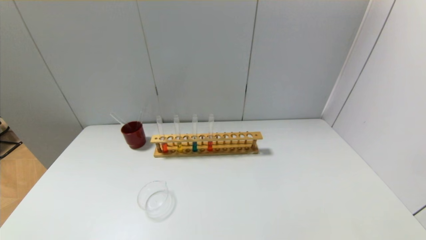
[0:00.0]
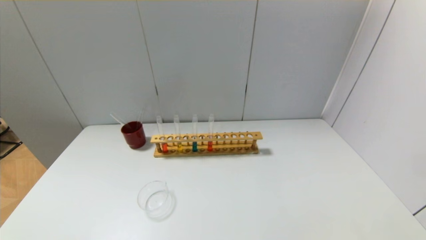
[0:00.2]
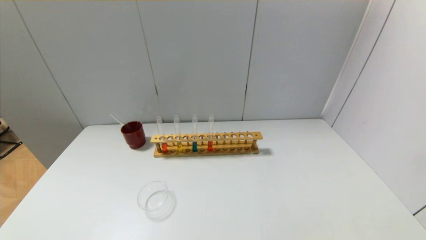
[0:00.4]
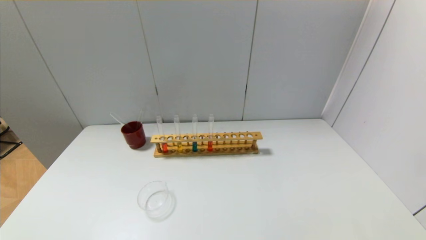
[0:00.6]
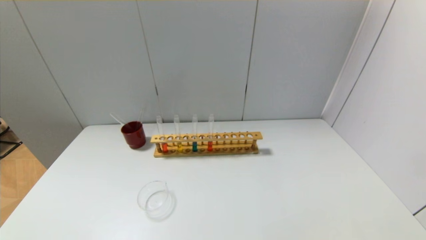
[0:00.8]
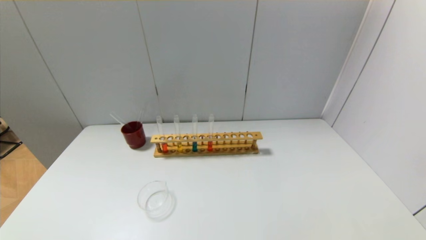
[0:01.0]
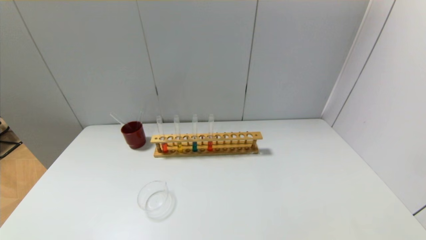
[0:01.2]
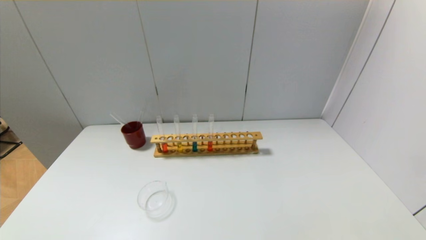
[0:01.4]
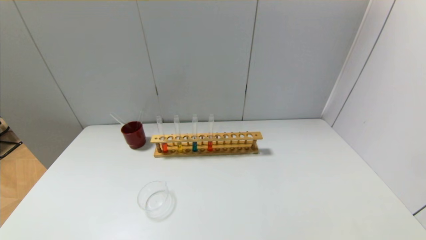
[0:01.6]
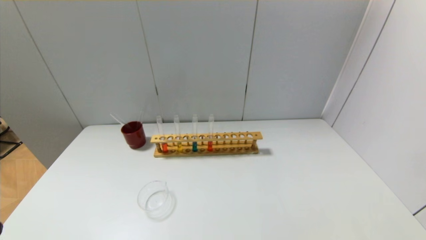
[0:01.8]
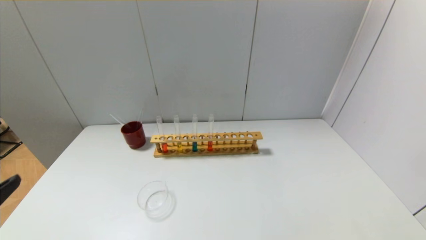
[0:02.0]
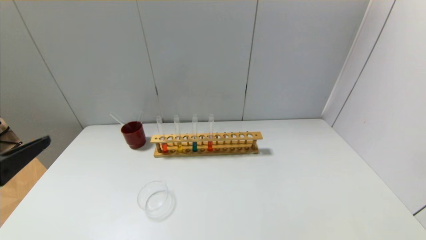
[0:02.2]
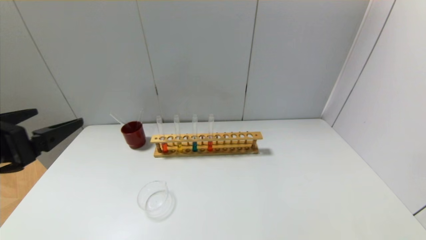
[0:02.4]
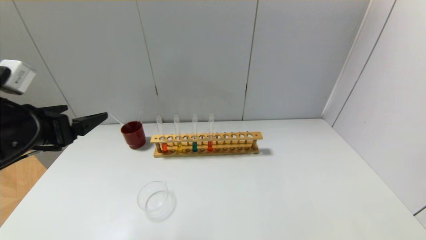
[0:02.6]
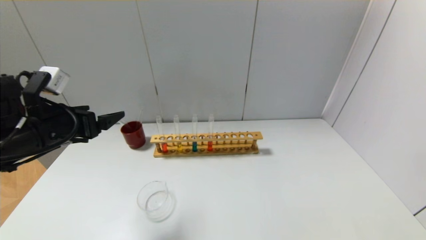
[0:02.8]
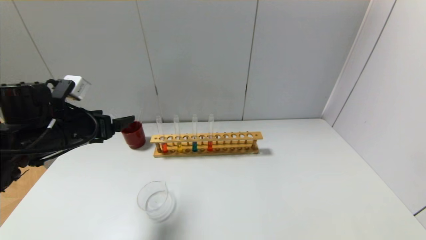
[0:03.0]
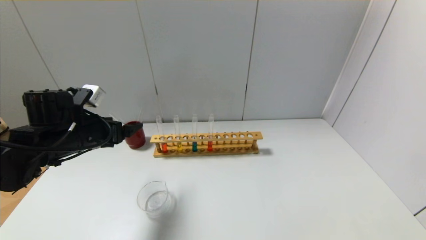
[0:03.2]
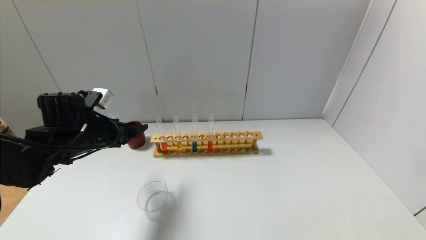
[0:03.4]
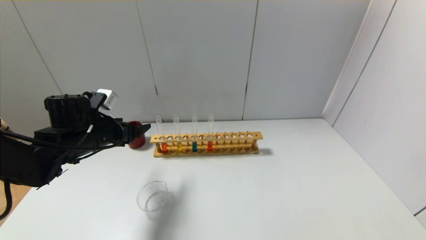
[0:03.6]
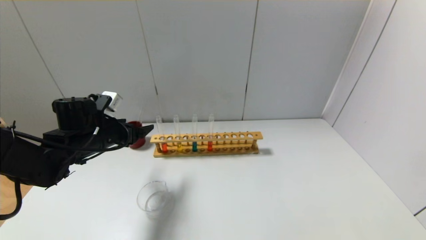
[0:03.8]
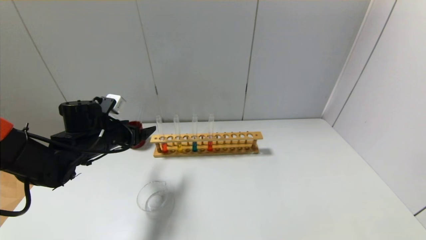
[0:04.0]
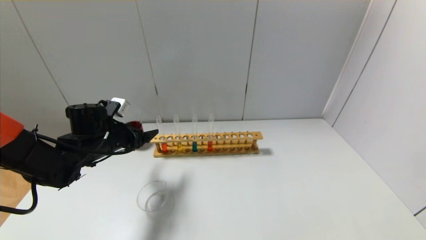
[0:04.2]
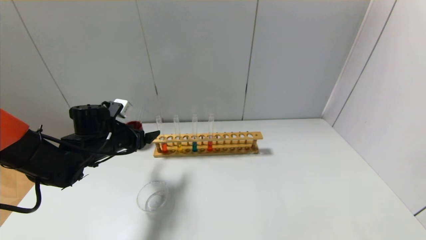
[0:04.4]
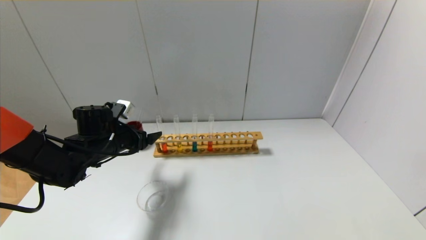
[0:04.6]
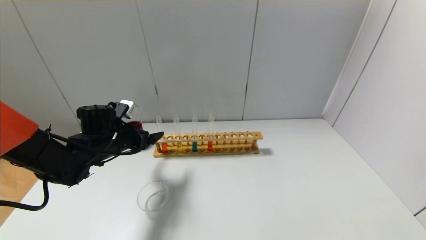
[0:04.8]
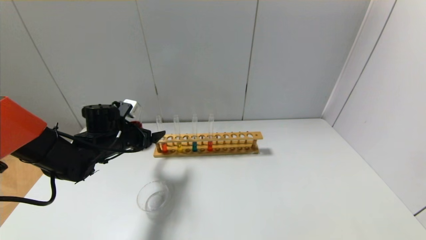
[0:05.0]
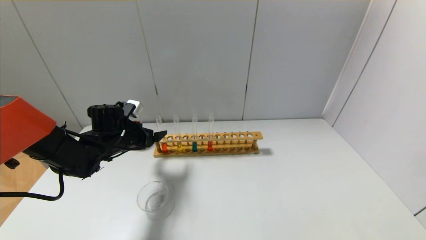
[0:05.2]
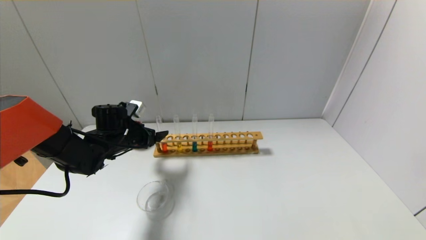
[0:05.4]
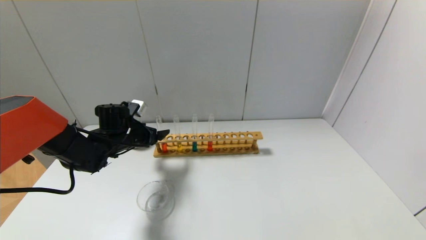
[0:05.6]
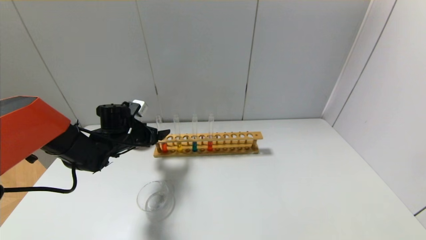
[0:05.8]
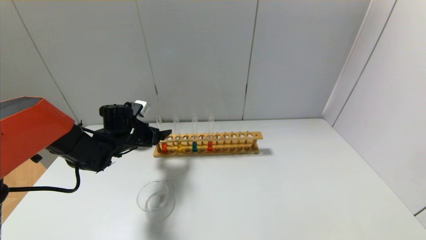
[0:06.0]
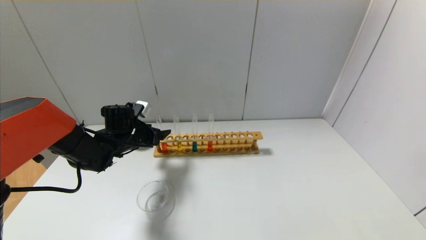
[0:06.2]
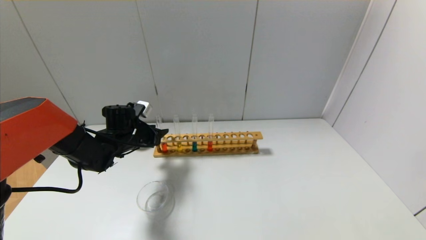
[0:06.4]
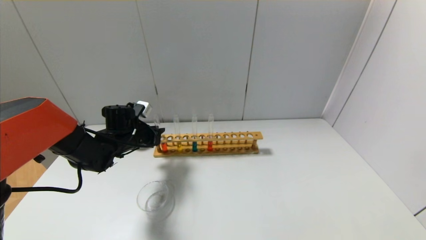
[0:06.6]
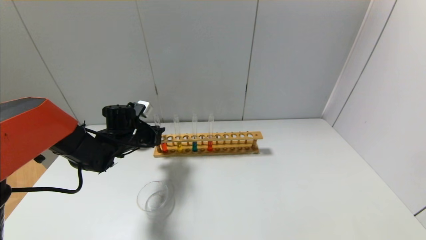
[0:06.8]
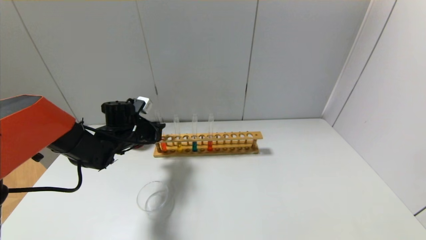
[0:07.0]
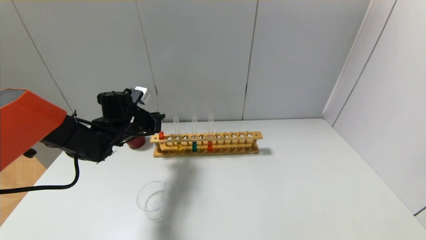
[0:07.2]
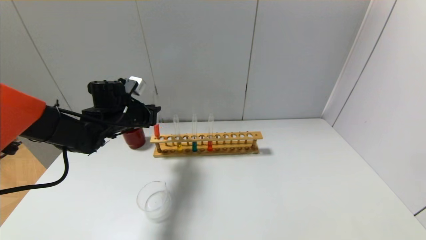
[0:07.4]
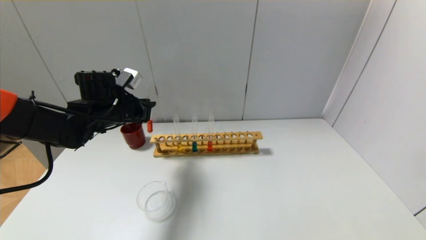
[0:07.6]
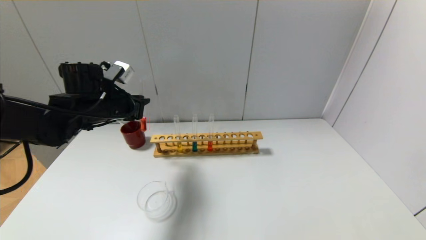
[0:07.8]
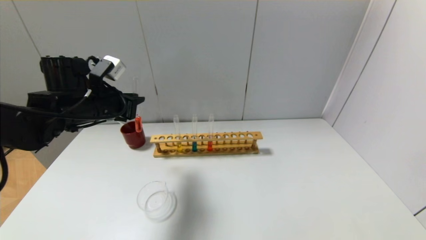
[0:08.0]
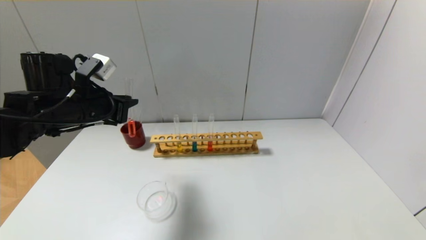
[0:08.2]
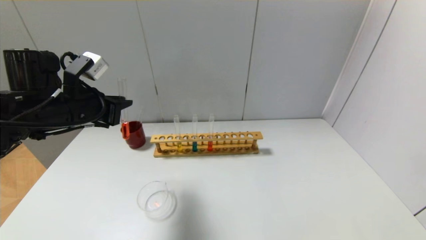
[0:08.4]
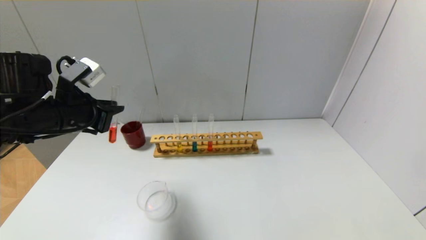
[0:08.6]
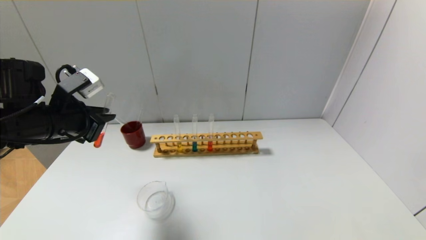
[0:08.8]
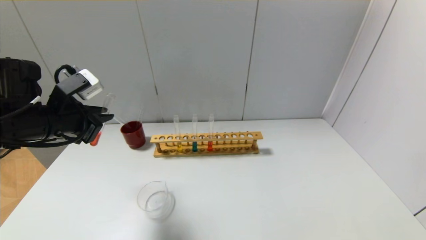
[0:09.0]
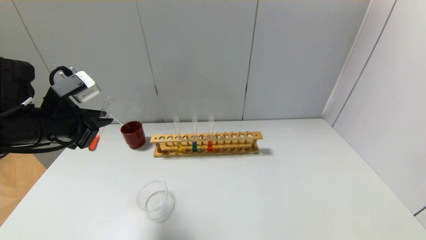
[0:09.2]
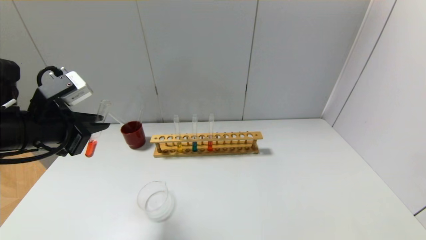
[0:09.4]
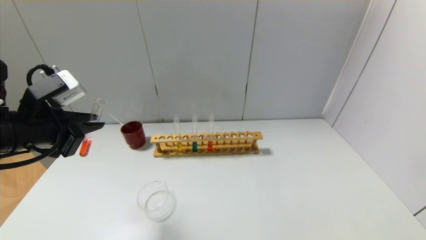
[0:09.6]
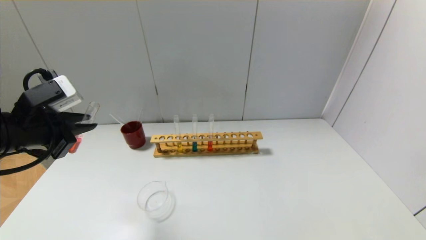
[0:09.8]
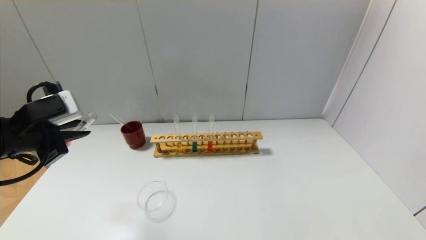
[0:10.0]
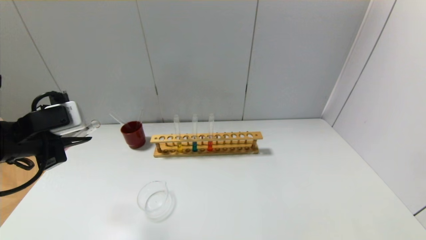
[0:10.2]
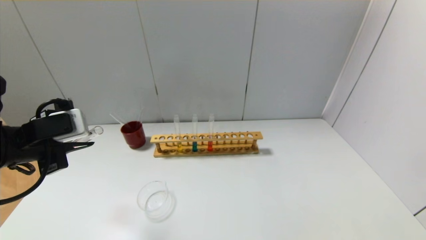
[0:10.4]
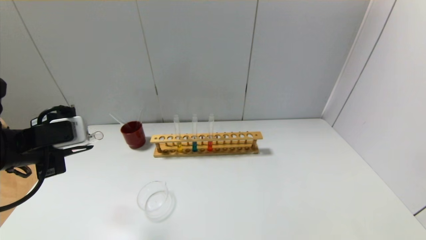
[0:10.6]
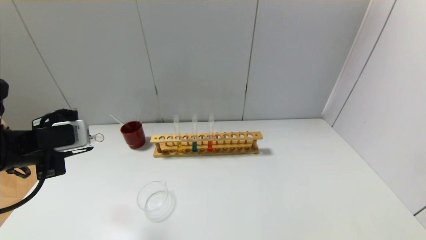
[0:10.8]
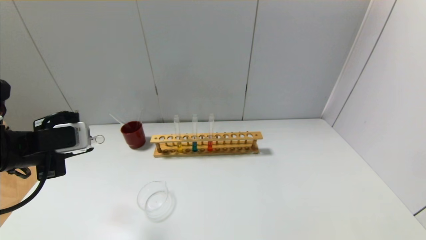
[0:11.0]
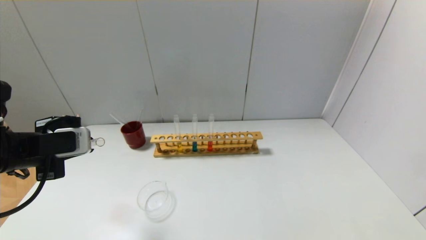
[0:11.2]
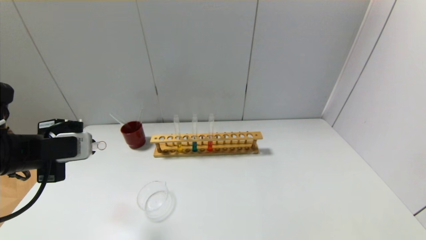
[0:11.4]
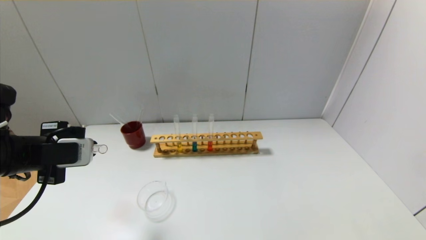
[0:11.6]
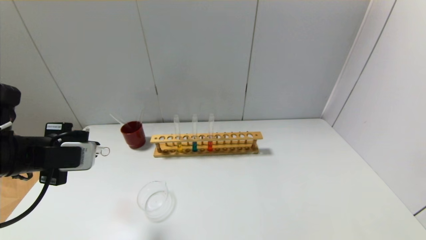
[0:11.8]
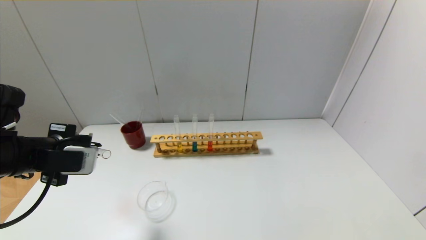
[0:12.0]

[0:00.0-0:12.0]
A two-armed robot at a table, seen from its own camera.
Step, 0:00.0 to 0:06.6: Grasp the red reagent with the left gripper.
0:01.6 to 0:03.0: The left gripper shifts approximately 30 cm forward.
0:03.0 to 0:04.4: The left gripper travels downward and forward by approximately 10 cm.
0:04.4 to 0:06.0: The left gripper heads forward, covering about 5 cm.
0:06.0 to 0:07.6: The left gripper is displaced upward by about 10 cm, and closes its fingers.
0:07.6 to 0:09.0: The left gripper heads backward and to the left, covering some 10 cm.
0:09.0 to 0:10.4: The left gripper moves backward, roughly 5 cm.

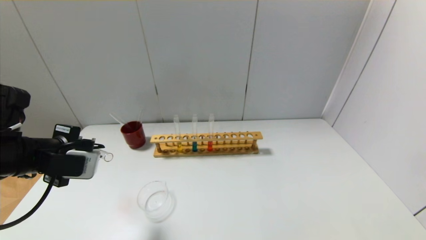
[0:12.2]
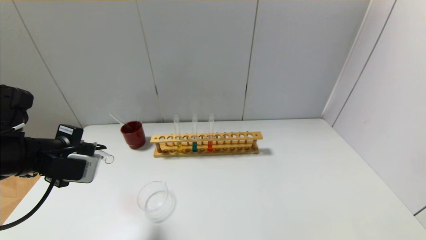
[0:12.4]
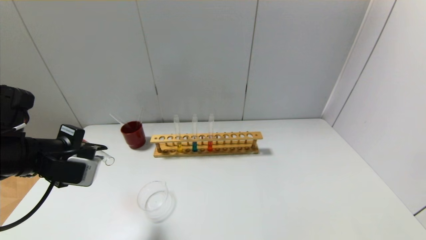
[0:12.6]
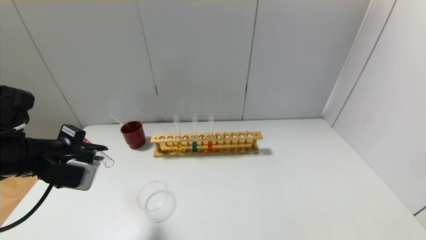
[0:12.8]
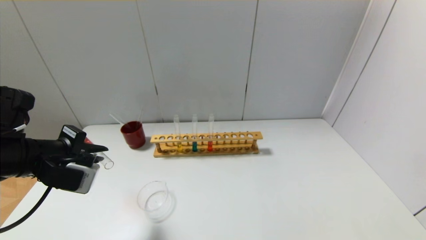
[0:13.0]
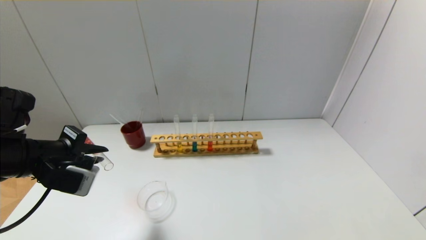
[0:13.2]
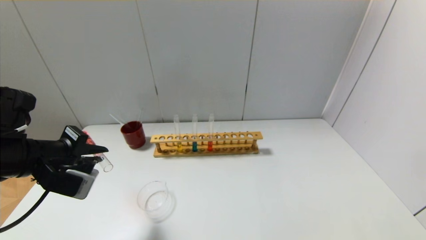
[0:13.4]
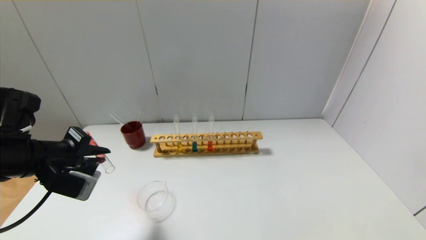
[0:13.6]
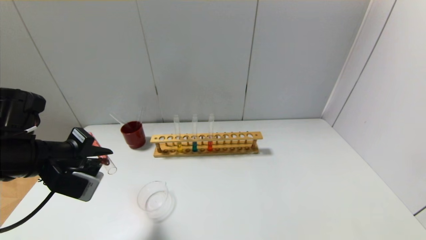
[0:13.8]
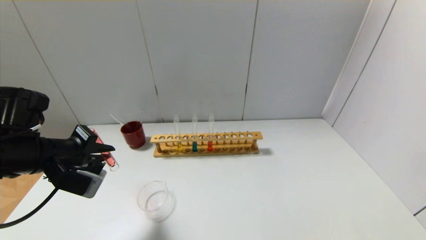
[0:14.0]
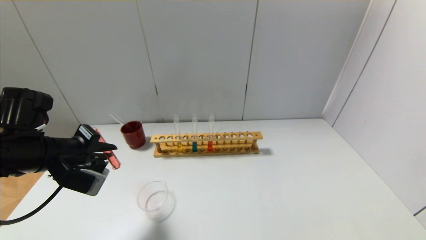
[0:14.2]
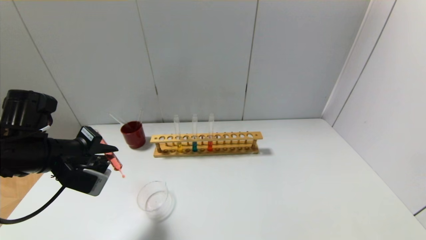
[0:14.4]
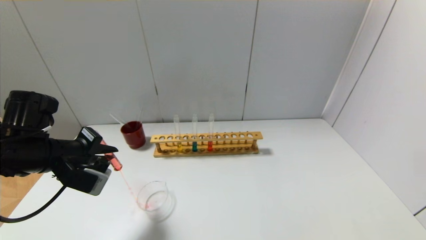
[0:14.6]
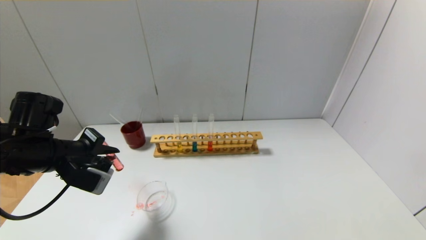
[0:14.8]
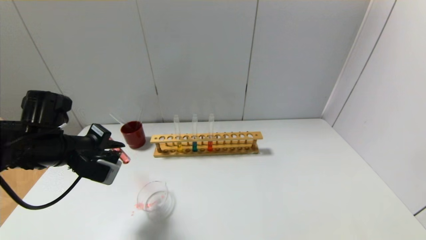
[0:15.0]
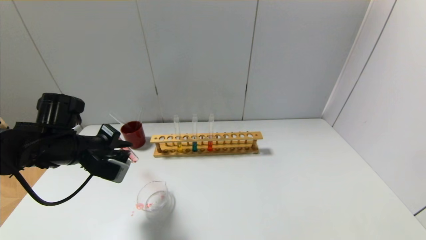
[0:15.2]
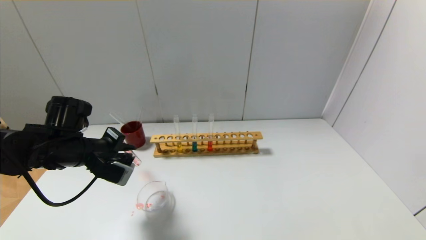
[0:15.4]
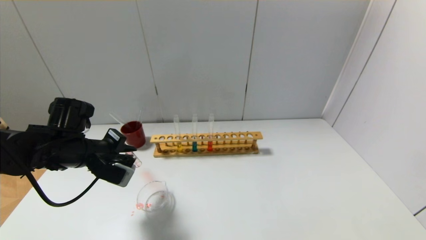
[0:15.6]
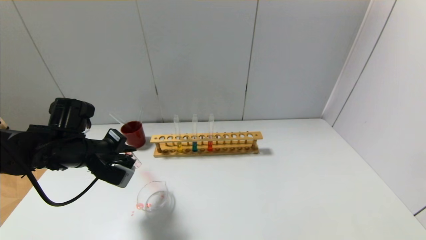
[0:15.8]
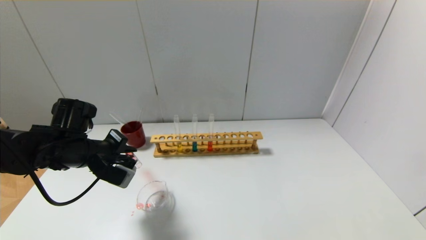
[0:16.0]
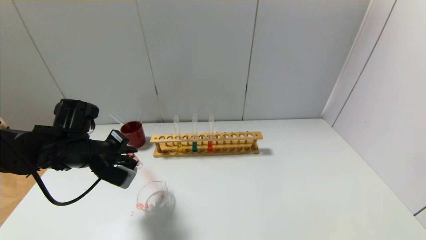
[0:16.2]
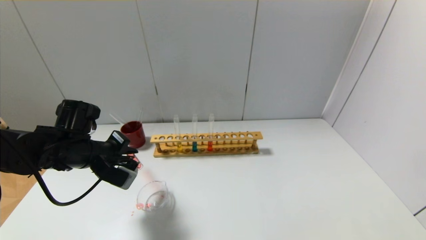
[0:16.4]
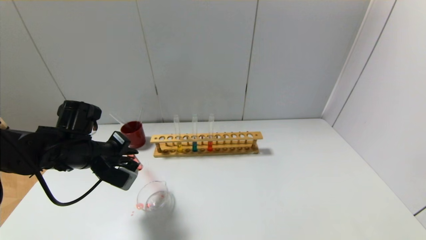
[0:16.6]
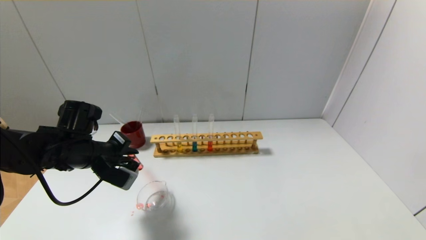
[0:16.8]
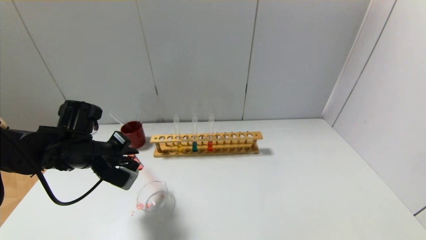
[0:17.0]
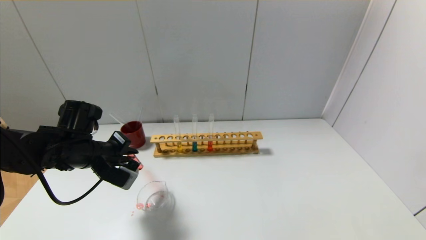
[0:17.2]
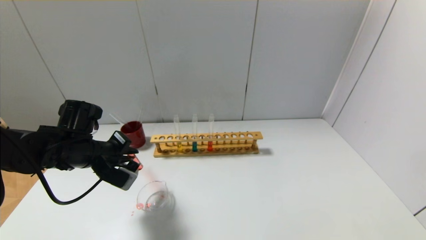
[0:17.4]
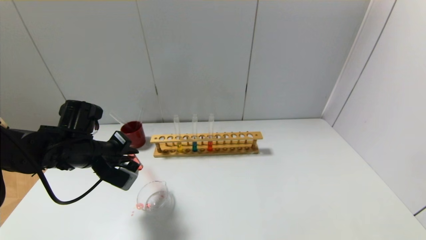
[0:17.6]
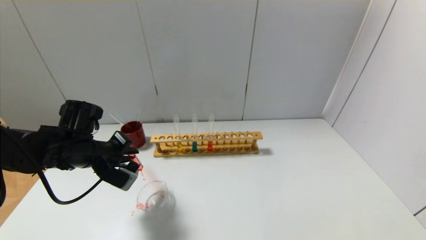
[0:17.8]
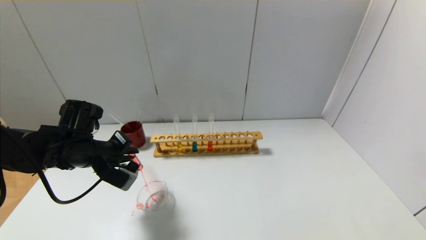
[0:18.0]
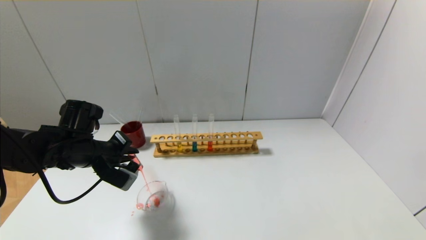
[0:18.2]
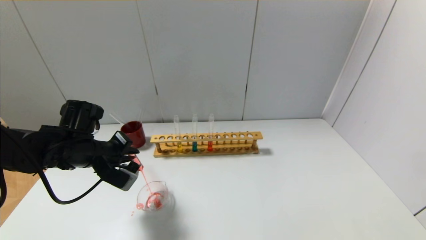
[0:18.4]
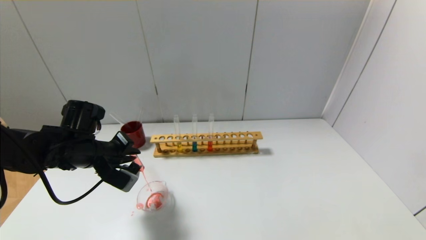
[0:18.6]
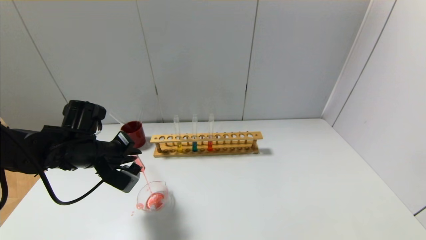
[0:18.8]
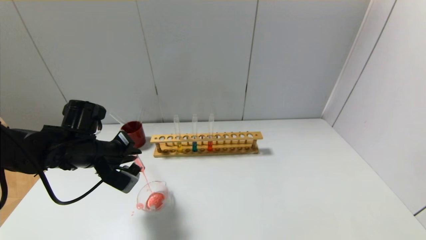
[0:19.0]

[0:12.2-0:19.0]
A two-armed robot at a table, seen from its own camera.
0:12.2 to 0:13.6: The grippers stay close to where they were, moving slightly.
0:13.6 to 0:15.0: The left gripper changes place by roughly 5 cm.
0:15.0 to 0:16.2: The grippers move only a little.
0:16.2 to 0:17.6: The two grippers keep their place.
0:17.6 to 0:19.0: Both grippers stay about where they are.
